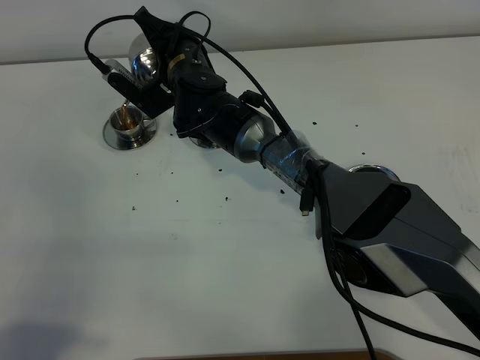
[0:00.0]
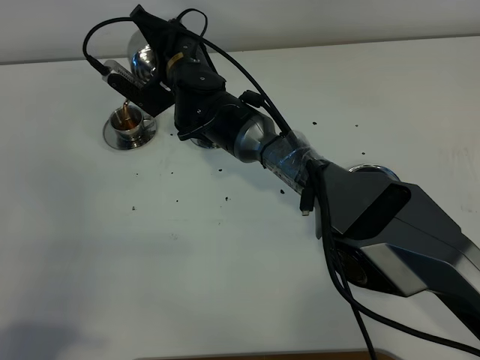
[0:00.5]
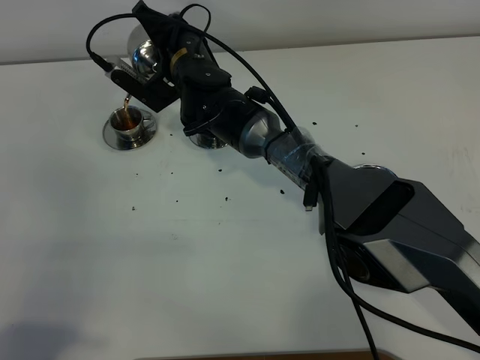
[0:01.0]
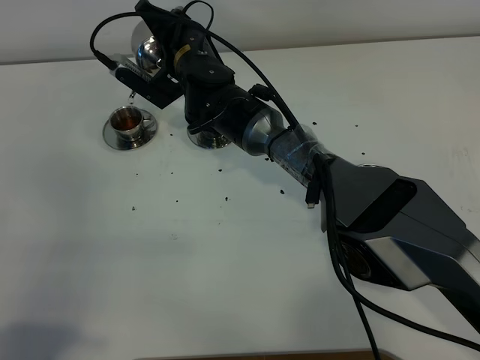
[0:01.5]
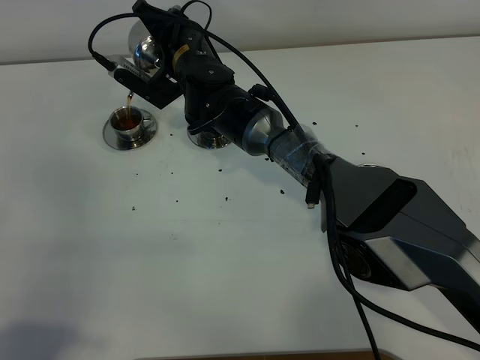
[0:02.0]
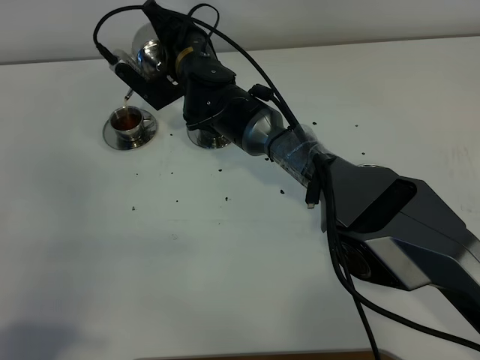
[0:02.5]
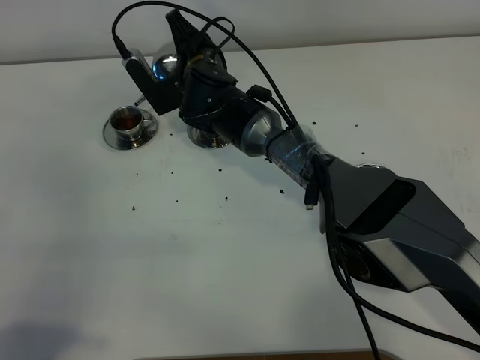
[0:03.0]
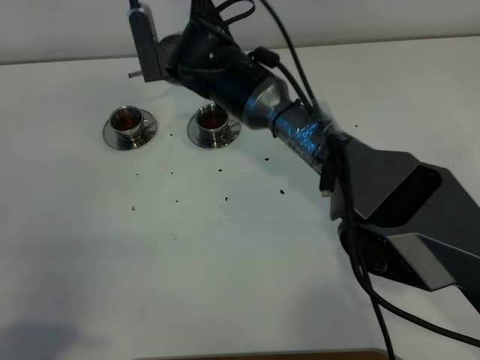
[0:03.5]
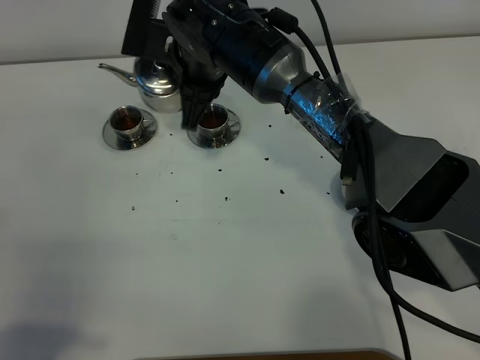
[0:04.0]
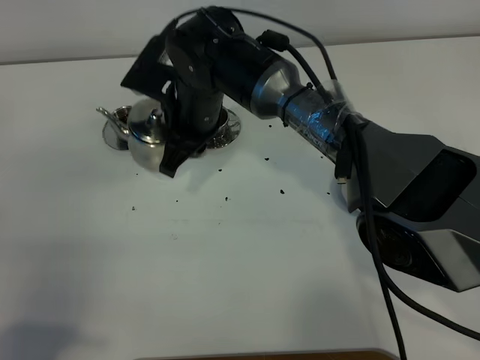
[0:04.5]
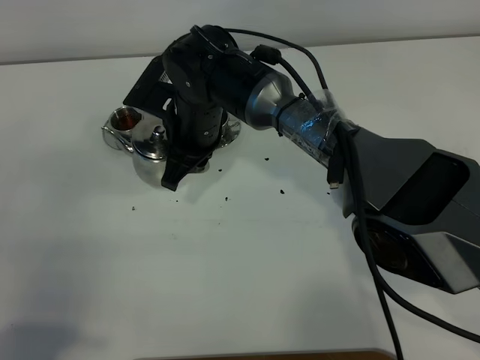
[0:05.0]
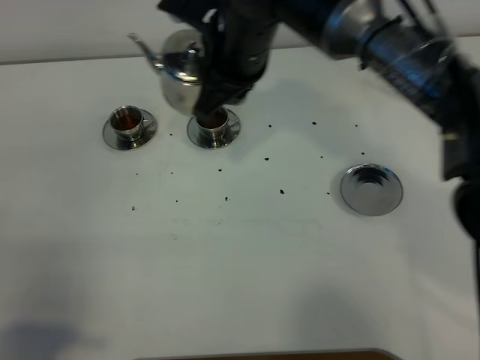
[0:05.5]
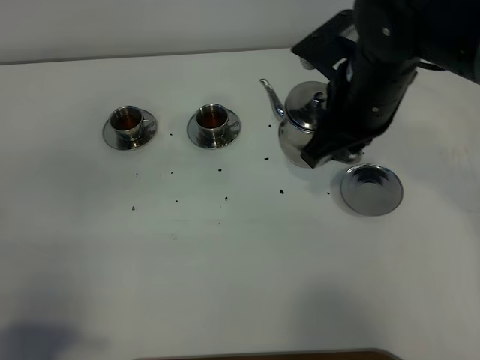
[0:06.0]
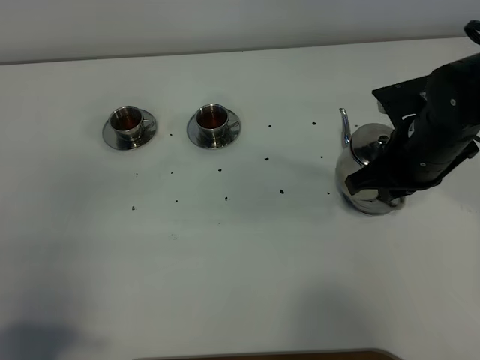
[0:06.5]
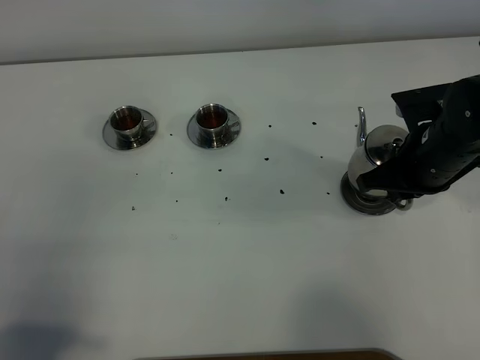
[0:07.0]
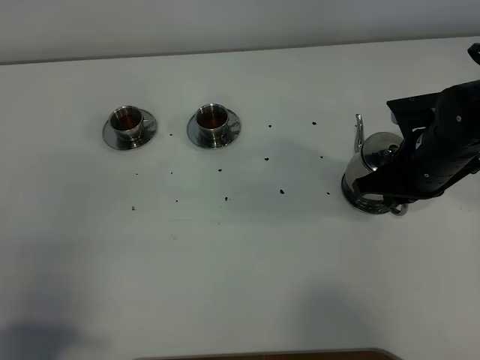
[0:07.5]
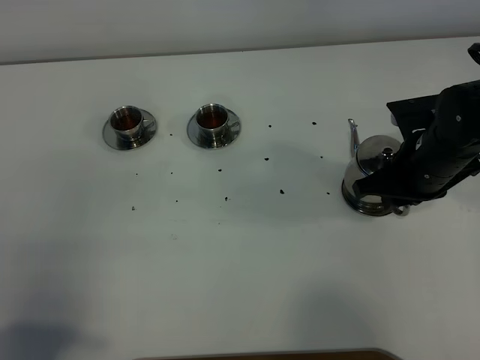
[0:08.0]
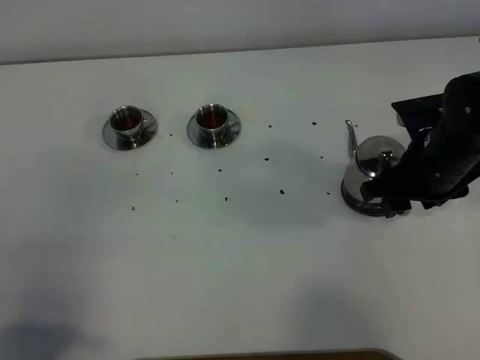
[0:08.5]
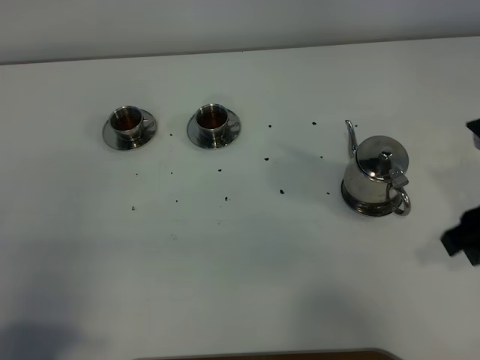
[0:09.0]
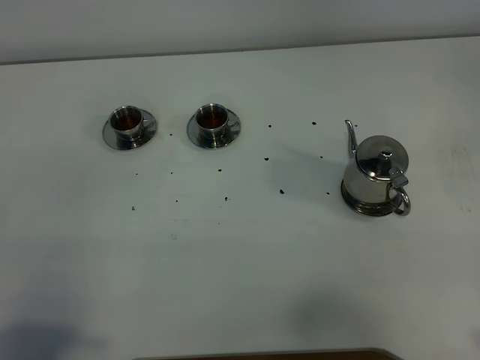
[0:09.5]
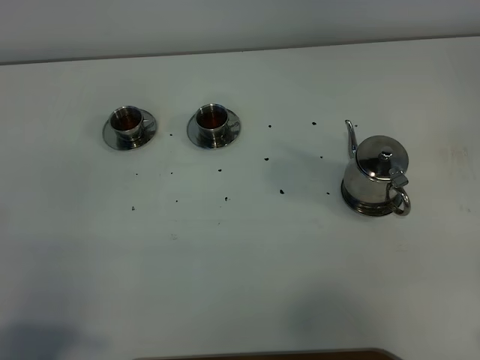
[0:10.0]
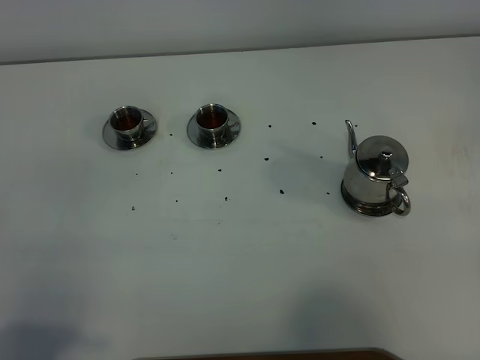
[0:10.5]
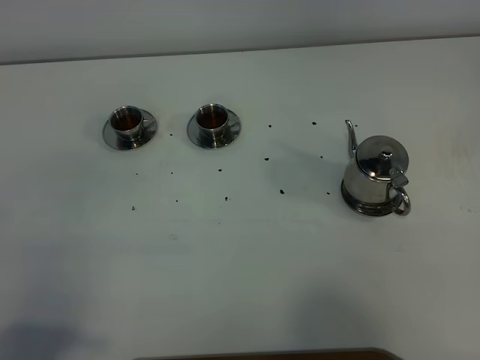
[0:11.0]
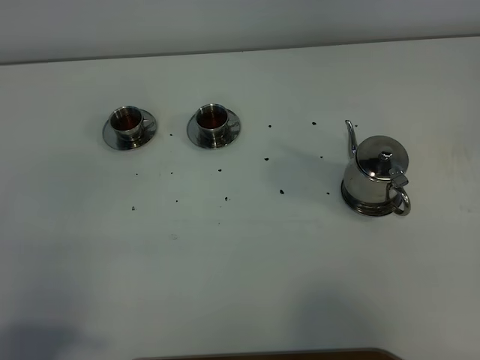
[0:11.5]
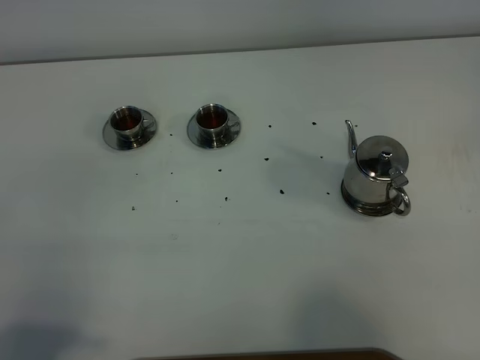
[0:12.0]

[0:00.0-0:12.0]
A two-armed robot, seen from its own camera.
Task of the whole recording: grasp the stainless steel teapot and pour the tea into the two stainless steel teacups one by one, put the stainless steel teapot back in its original place.
Step, 0:00.0 to 0:03.0: Pour tea into the teacup with the right gripper.
0:00.0 to 0:02.0: The grippers stay close to where they were, moving slightly.
0:02.0 to 0:04.0: The right gripper shifts roughly 10 cm upward and backward.
0:04.0 to 0:06.0: The right gripper shifts roughly 20 cm to the right.
0:06.0 to 0:08.0: The right gripper moves downward and to the right, approximately 15 cm.
0:08.0 to 0:10.0: The right gripper shifts some 30 cm backward, to the right and upward, and opens its fingers.

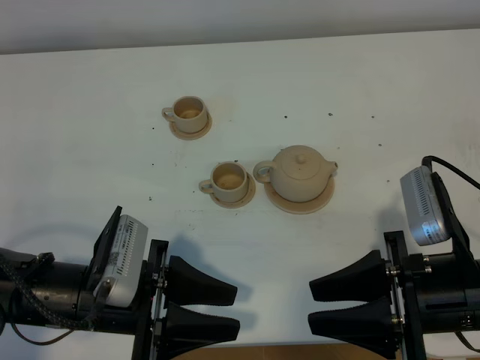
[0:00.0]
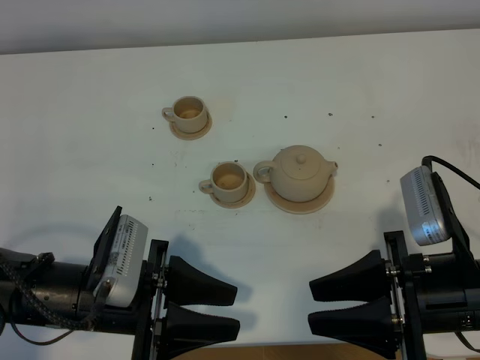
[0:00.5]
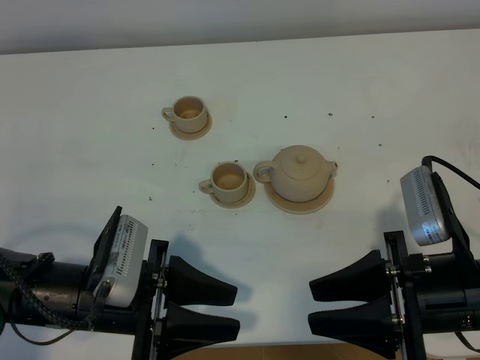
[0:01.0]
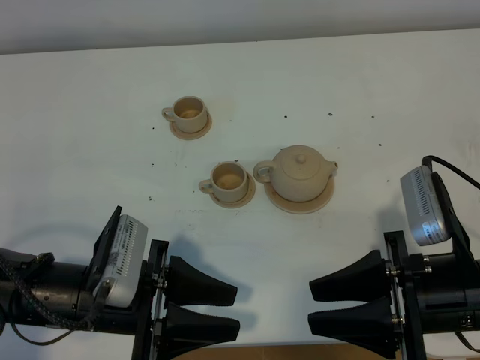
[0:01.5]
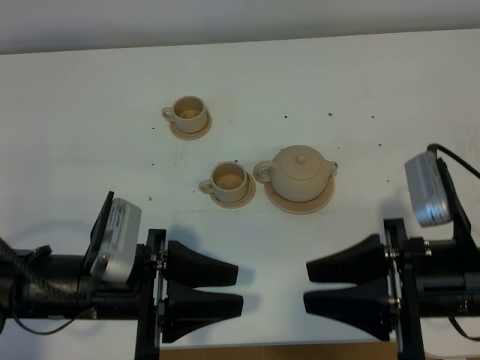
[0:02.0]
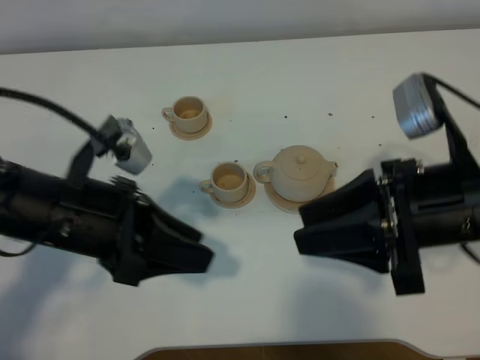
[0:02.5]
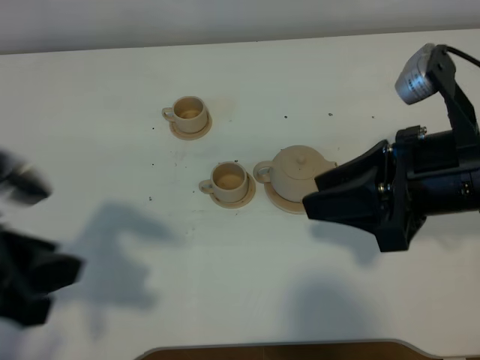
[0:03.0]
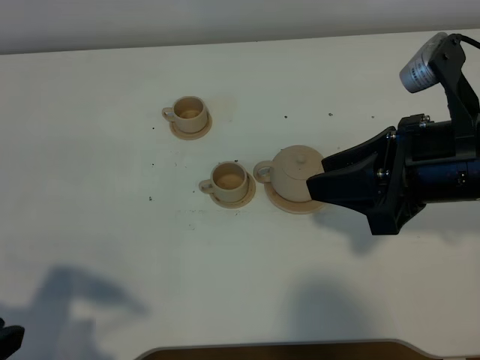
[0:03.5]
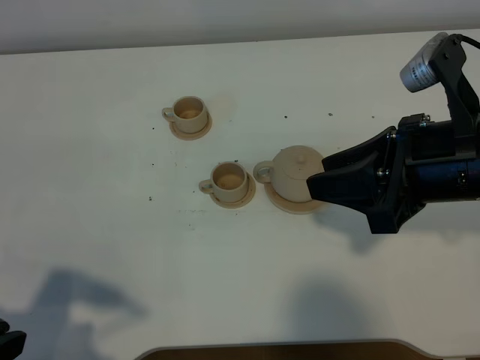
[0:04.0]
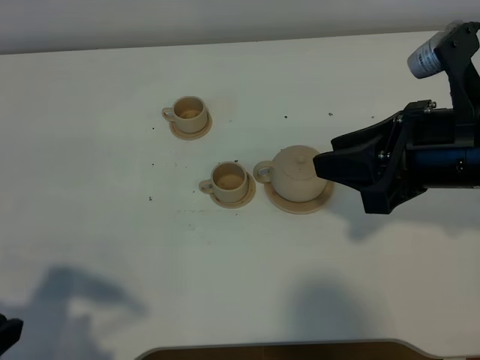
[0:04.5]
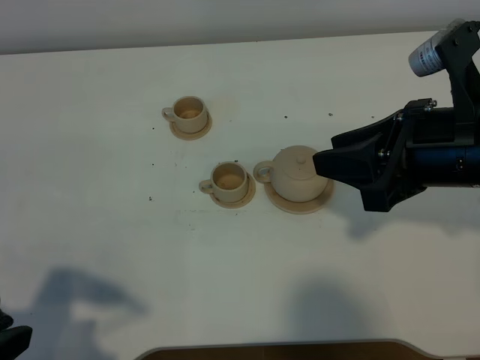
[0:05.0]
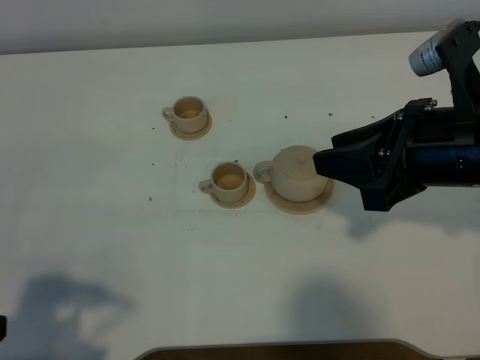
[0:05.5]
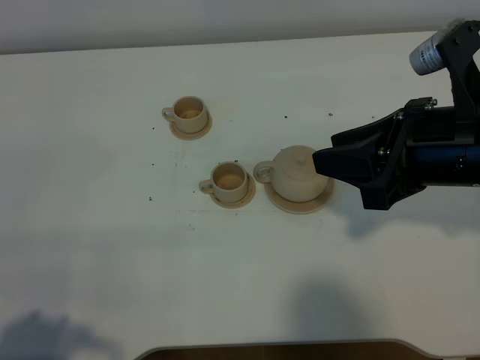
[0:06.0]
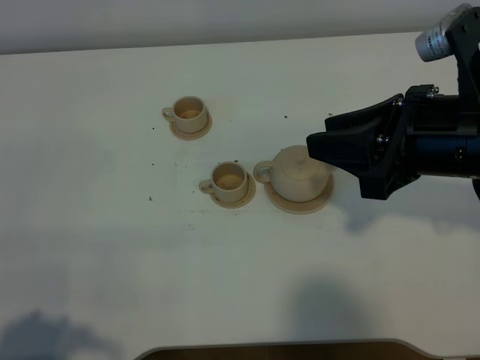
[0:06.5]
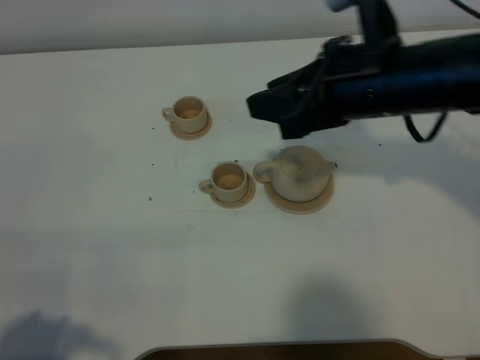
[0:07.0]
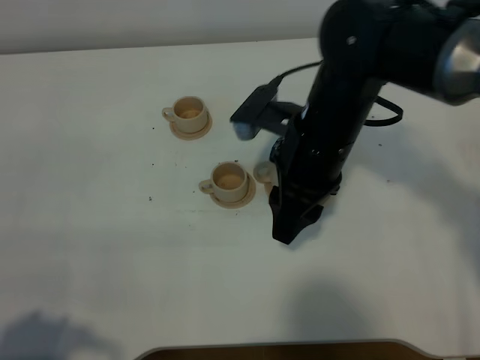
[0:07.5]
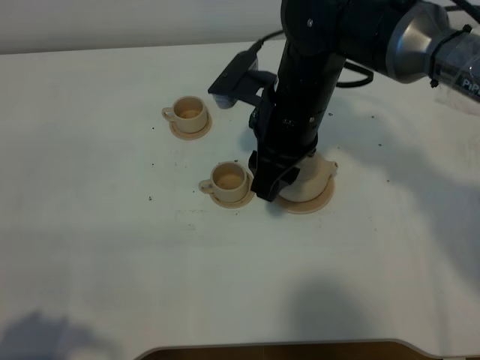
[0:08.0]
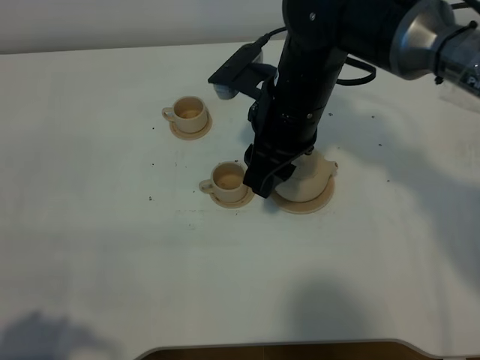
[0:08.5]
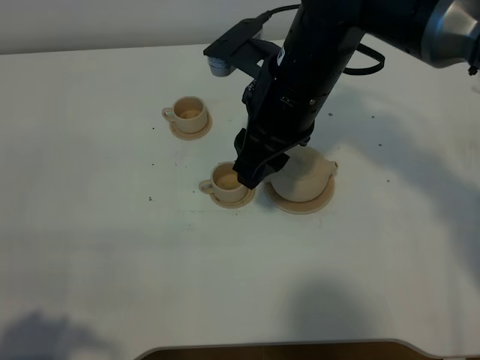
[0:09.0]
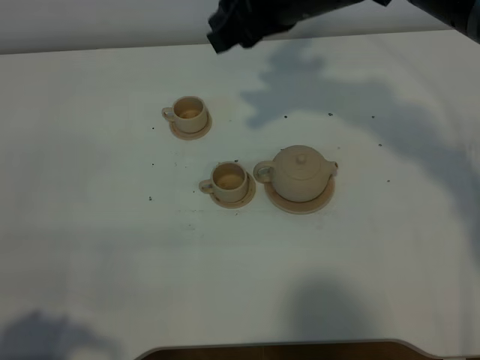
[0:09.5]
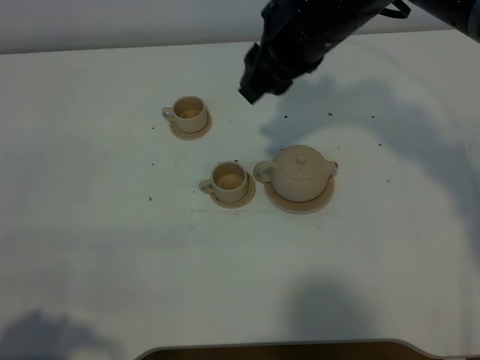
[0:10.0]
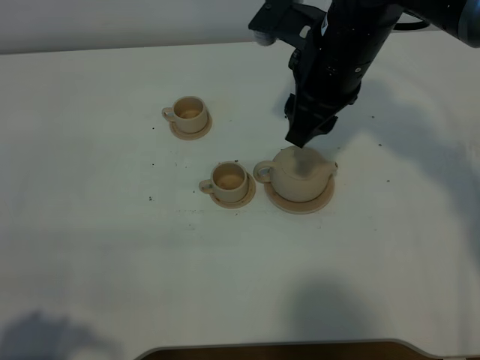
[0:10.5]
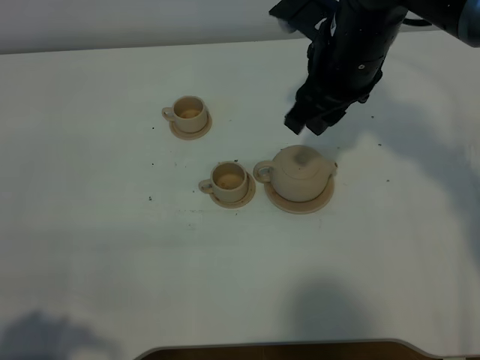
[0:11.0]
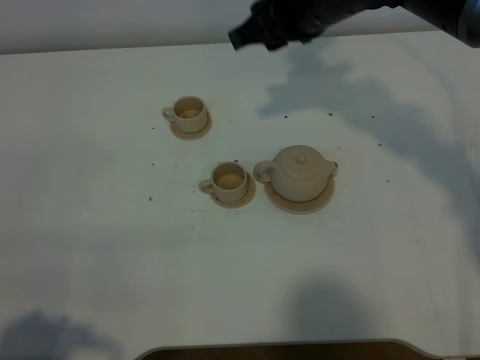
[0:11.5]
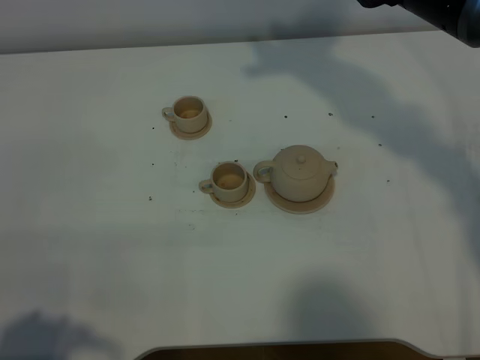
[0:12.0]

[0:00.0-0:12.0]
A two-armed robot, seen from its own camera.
Task of the whole recording: grasp the brown teapot and pour the tea into the two brown teacups one by one, put the brown teapot back in its original place.
0:00.0 to 0:02.0: There are only small adjustments of the grippers.
0:02.0 to 0:04.0: The right gripper is displaced upward and forward by about 10 cm; the left gripper heads to the left, upward and backward, covering some 20 cm, and closes up.
0:04.0 to 0:06.0: The left gripper moves backward, approximately 5 cm.
0:06.0 to 0:08.0: The right gripper moves to the left and forward, approximately 20 cm.
0:08.0 to 0:10.0: The right gripper shifts roughly 5 cm upward.
0:10.0 to 0:12.0: The right gripper shifts by about 5 cm.

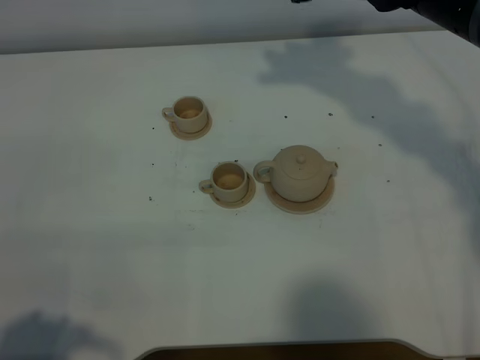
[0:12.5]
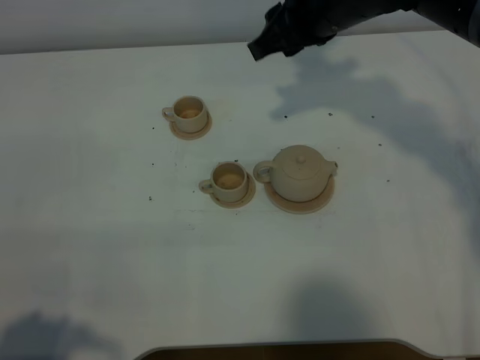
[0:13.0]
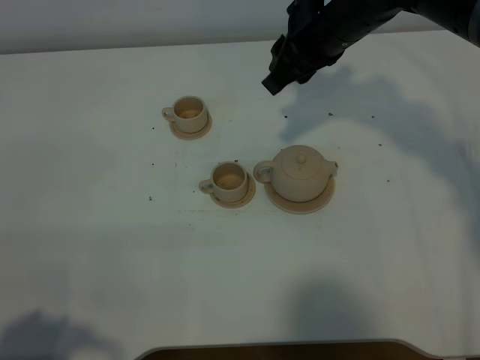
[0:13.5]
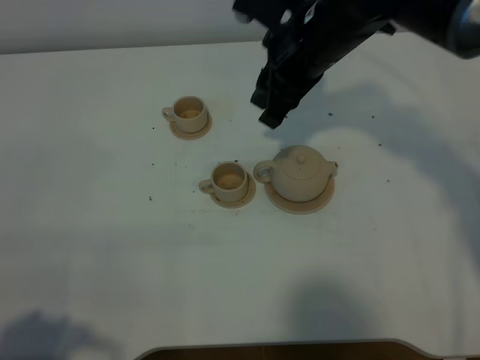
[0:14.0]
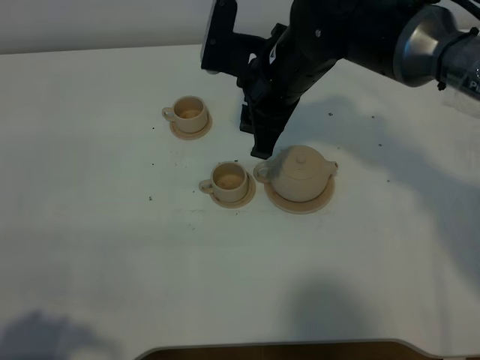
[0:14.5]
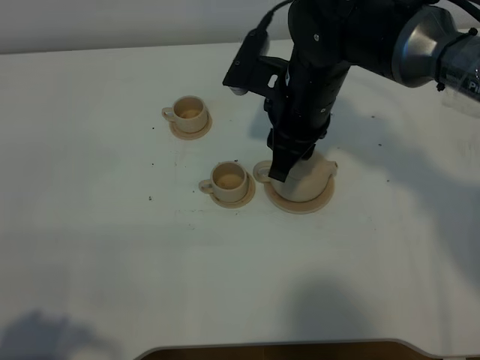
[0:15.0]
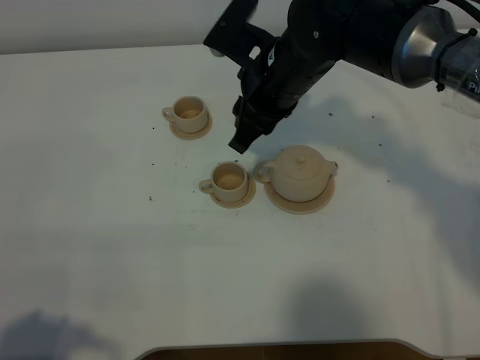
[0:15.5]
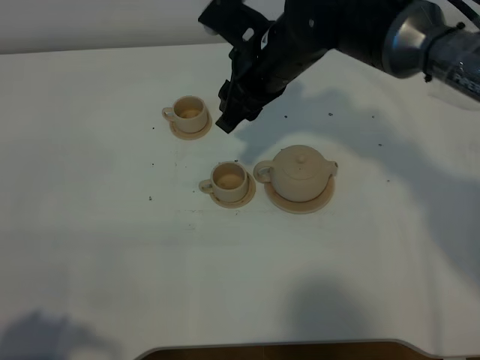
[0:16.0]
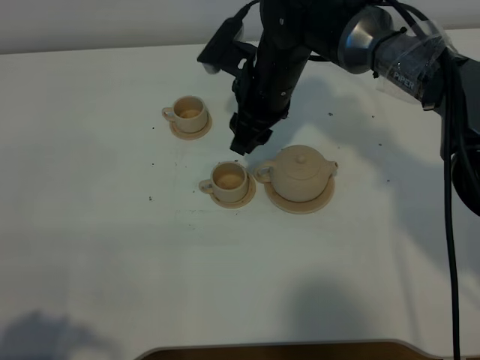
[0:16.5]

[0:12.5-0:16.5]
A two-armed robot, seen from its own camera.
Task of the whole recording: grasp the brown teapot and pour the tea into the two brown teacups one by one, put the brown teapot back in its original place.
0:12.5 to 0:14.5: The right gripper moves downward, approximately 10 cm.
0:14.5 to 0:16.5: The right gripper changes place by approximately 5 cm.
